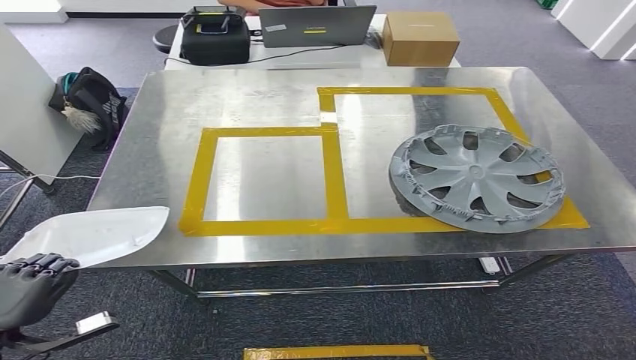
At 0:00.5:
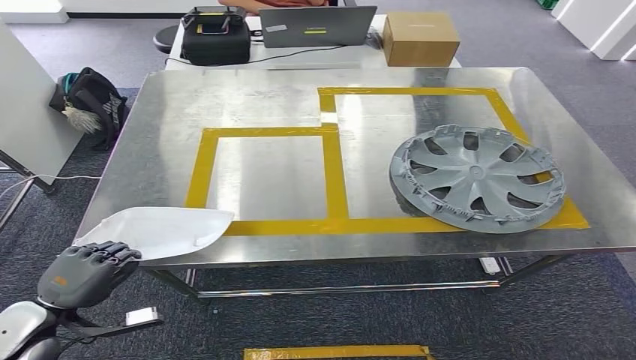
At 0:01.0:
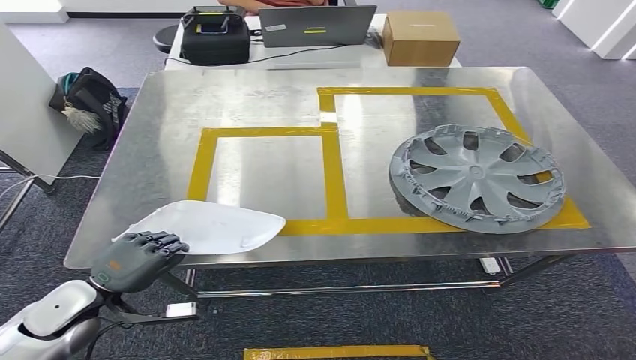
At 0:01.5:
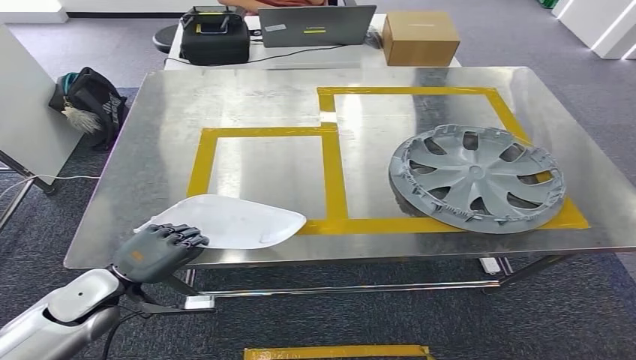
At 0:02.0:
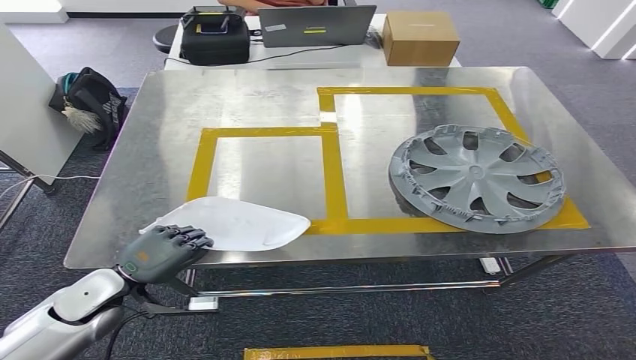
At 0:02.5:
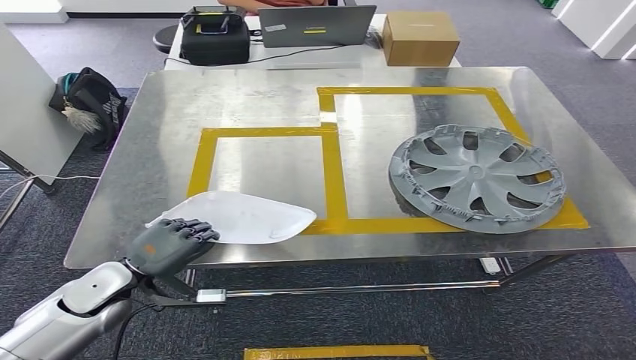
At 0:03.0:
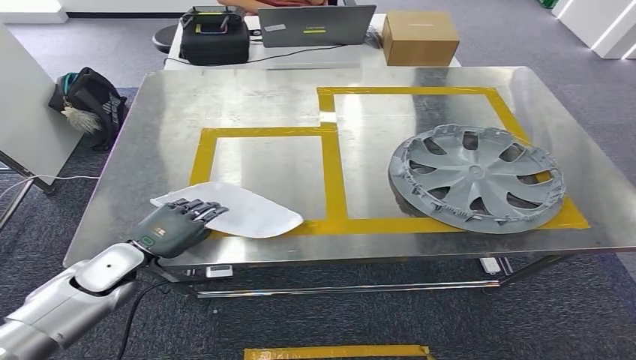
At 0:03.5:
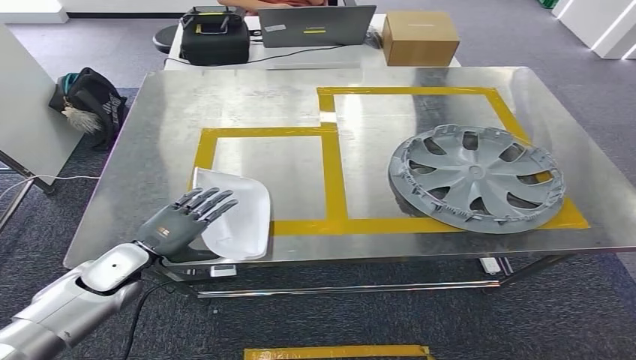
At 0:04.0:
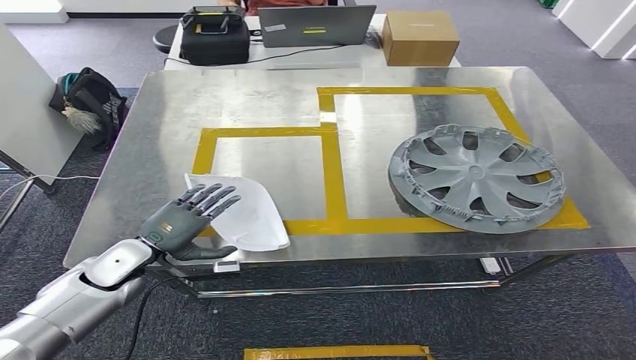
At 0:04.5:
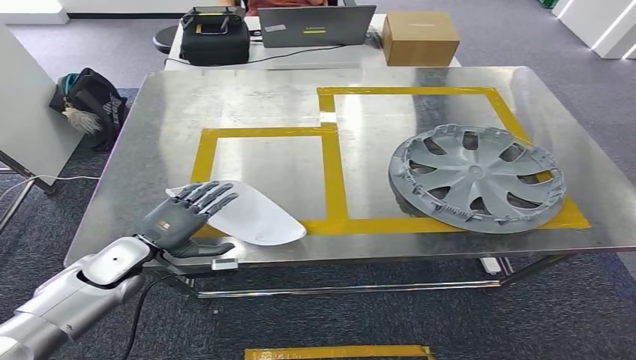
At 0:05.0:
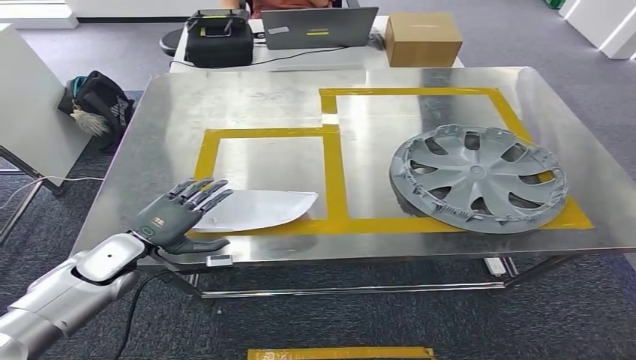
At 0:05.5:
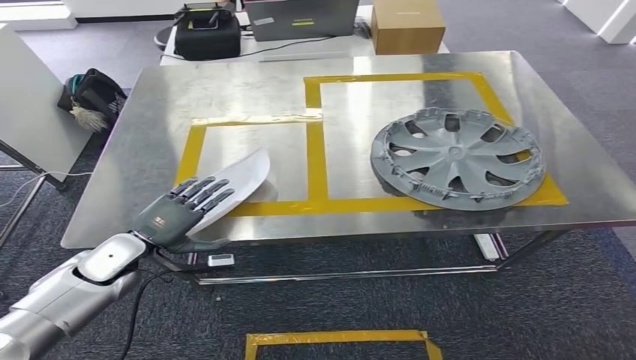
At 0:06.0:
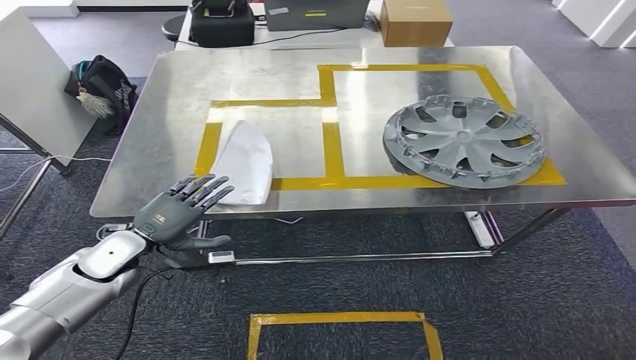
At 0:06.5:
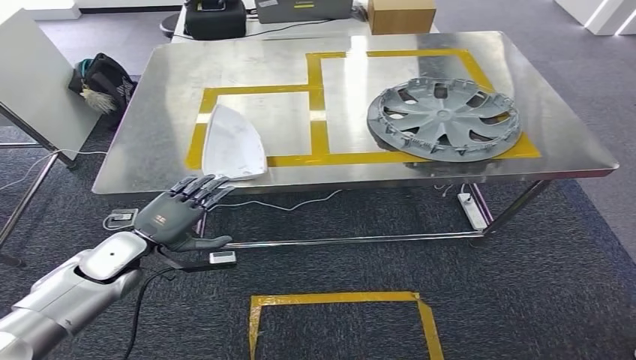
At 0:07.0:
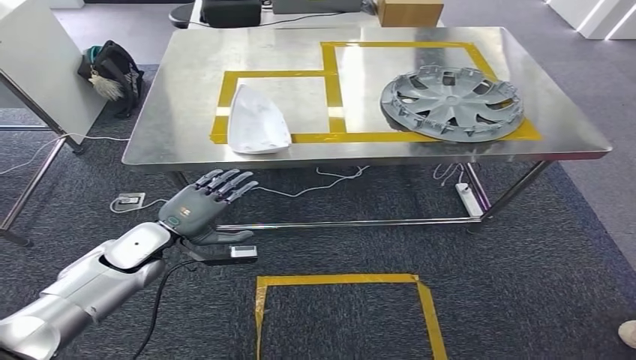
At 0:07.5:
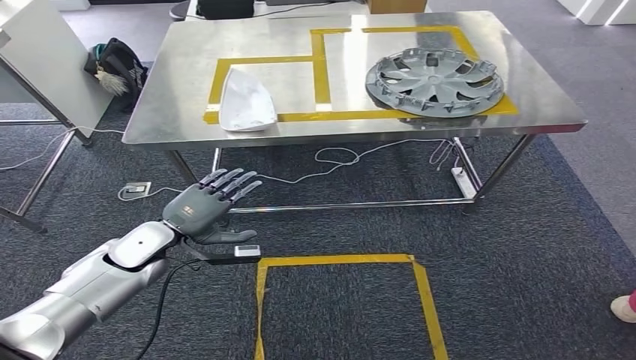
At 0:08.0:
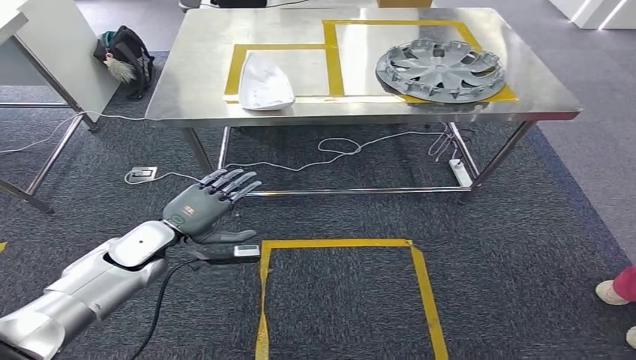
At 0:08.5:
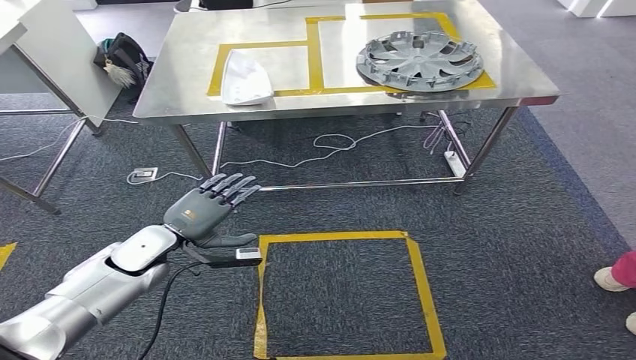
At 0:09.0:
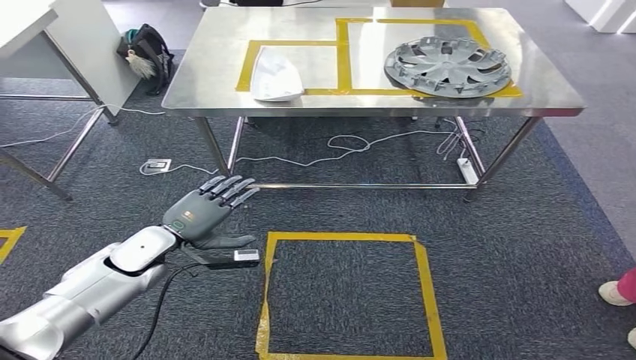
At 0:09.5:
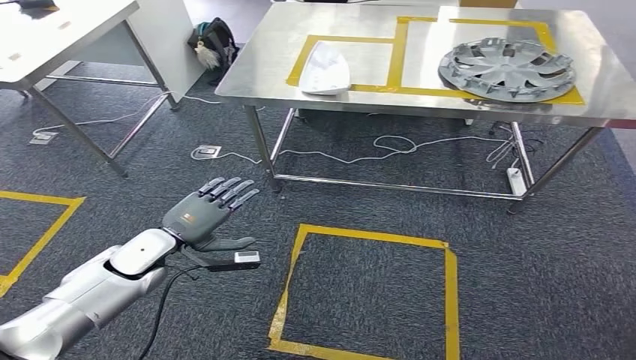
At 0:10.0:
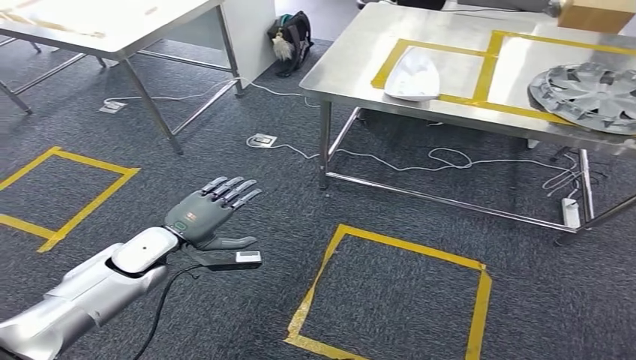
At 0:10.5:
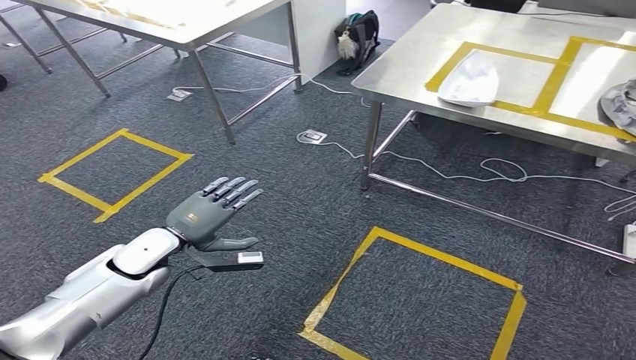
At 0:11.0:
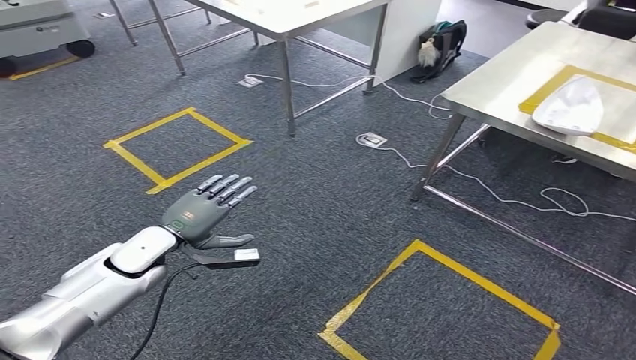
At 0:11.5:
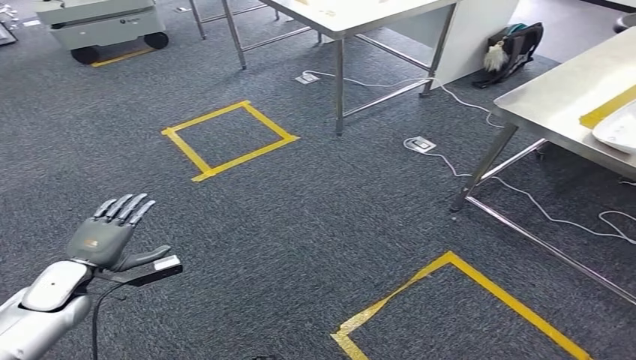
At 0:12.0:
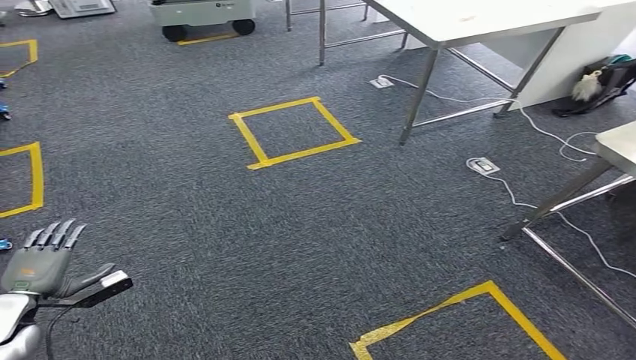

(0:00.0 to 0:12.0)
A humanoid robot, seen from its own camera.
Step, 0:00.0 - 0:07.0: Insert the small component into the corresponding slot on the workbench.
0:00.0 - 0:02.0: The left hand is displaced to the right and forward by approximately 15 cm.
0:02.0 - 0:04.0: The left hand shifts roughly 5 cm forward.

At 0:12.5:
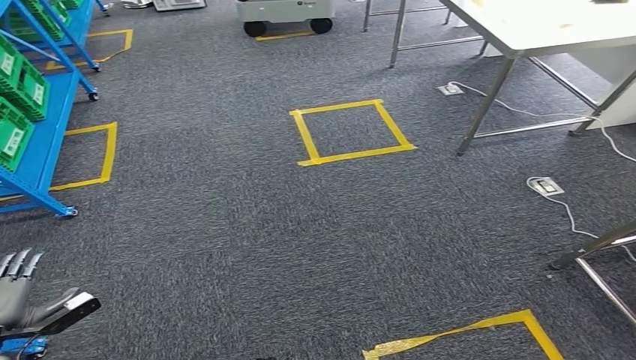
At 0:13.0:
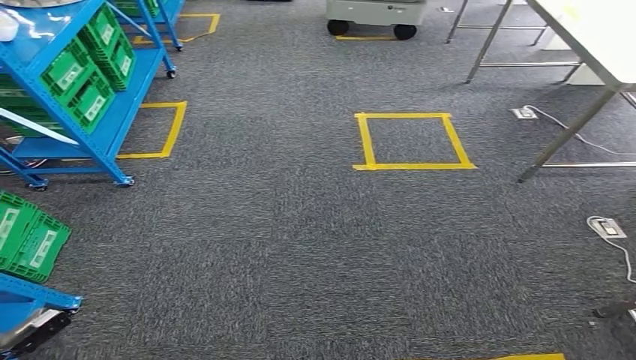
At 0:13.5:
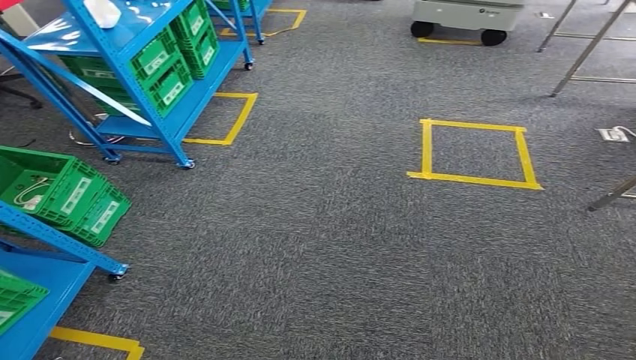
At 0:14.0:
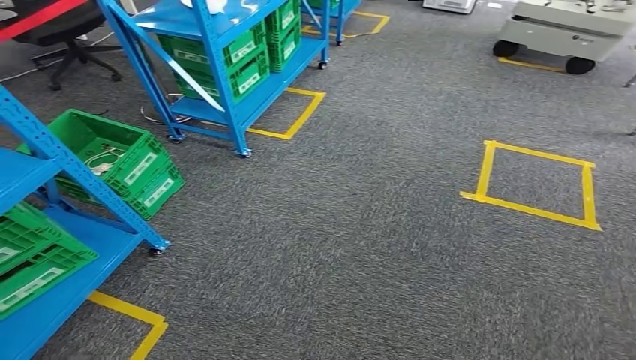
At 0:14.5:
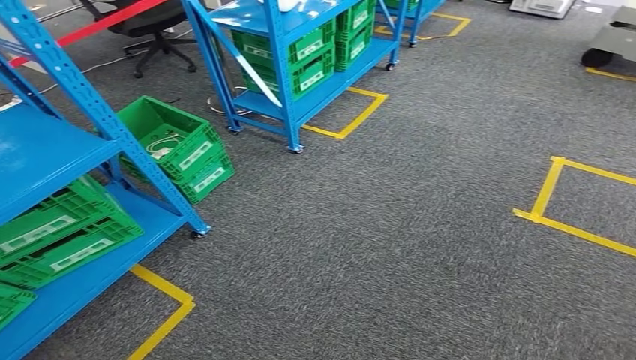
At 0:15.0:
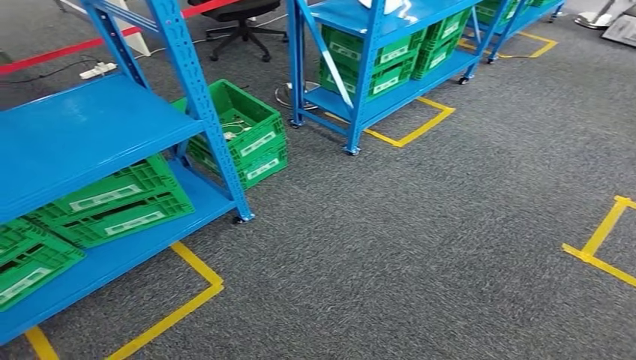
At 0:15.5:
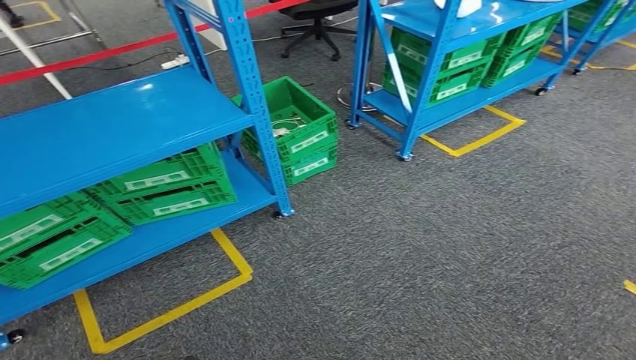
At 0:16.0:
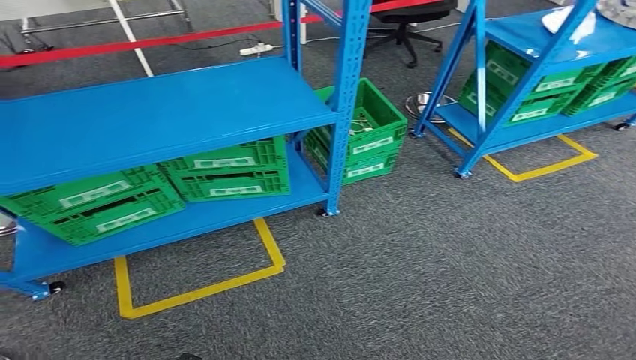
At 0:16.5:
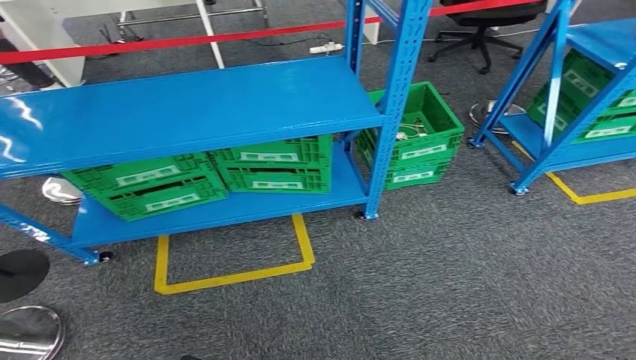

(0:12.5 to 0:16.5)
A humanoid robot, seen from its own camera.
Step, 0:12.5 - 0:16.5: Return to the initial position at the workbench.
